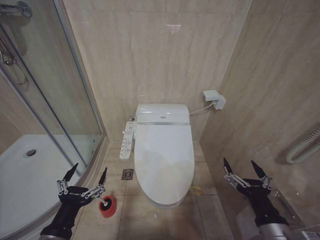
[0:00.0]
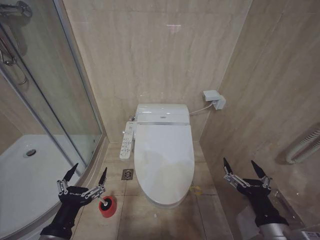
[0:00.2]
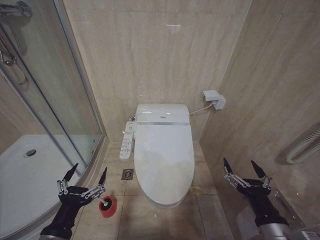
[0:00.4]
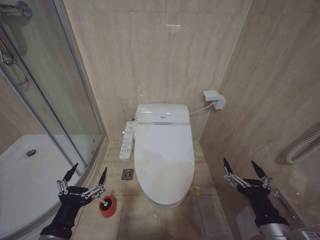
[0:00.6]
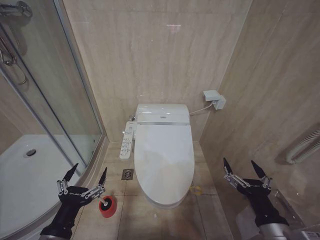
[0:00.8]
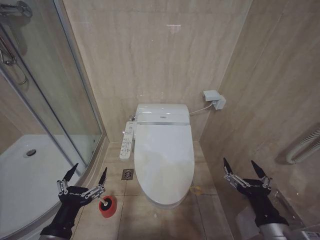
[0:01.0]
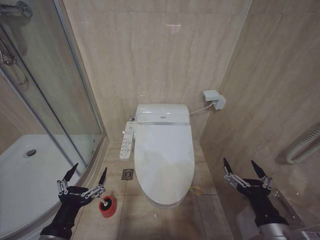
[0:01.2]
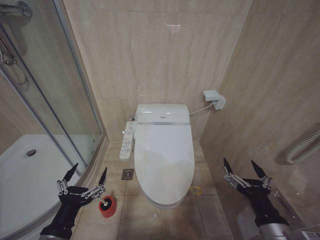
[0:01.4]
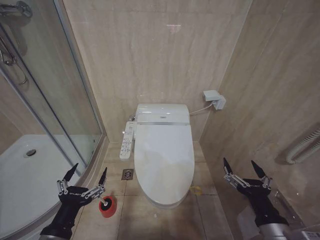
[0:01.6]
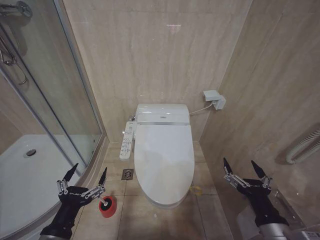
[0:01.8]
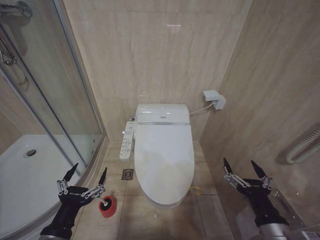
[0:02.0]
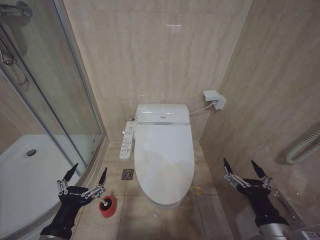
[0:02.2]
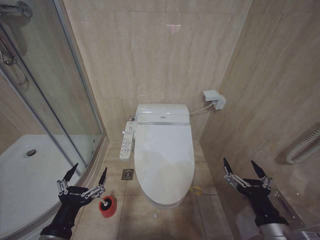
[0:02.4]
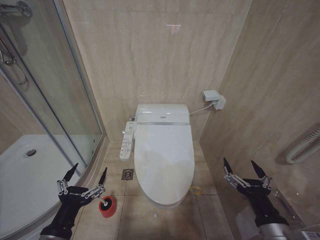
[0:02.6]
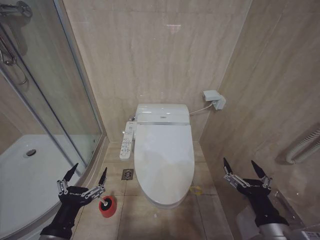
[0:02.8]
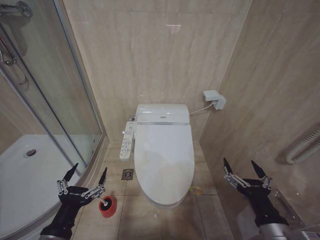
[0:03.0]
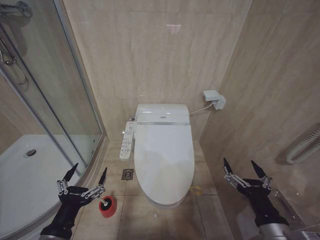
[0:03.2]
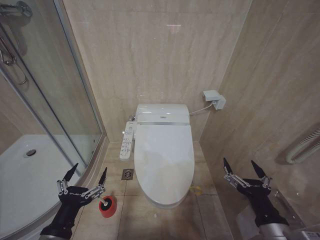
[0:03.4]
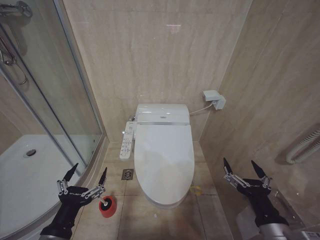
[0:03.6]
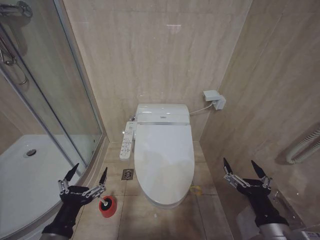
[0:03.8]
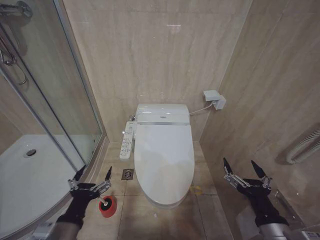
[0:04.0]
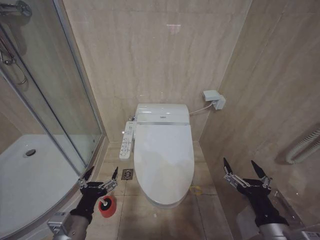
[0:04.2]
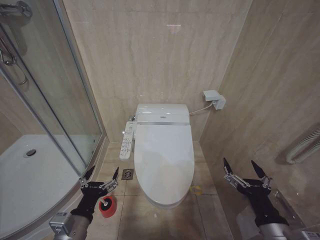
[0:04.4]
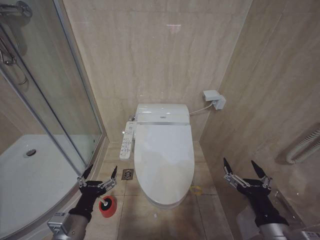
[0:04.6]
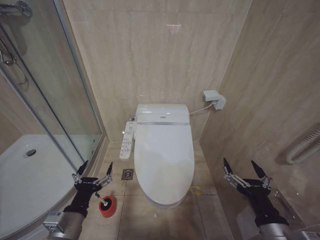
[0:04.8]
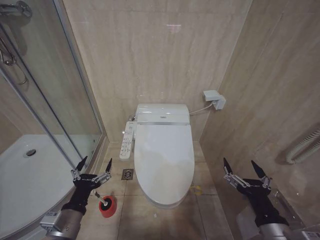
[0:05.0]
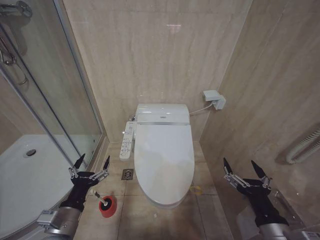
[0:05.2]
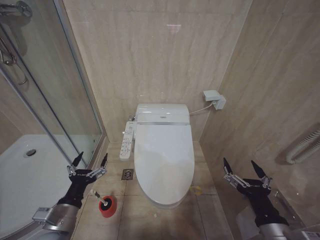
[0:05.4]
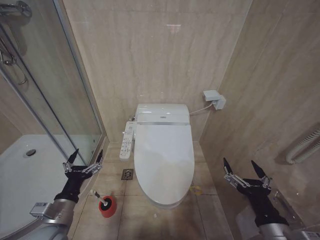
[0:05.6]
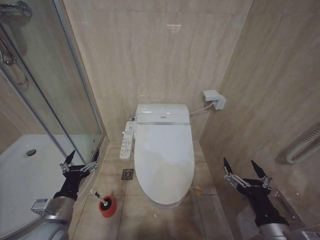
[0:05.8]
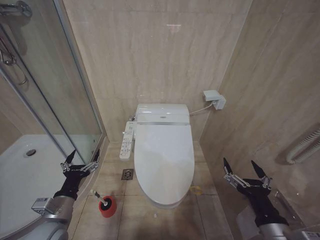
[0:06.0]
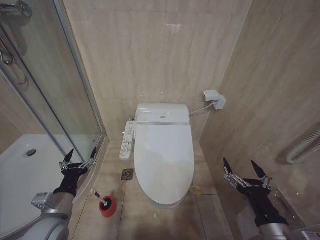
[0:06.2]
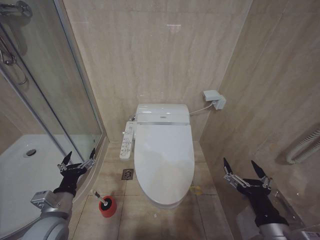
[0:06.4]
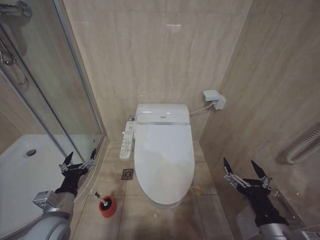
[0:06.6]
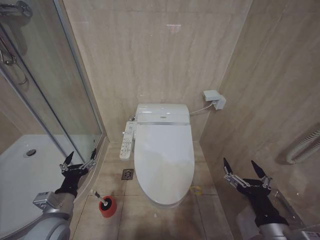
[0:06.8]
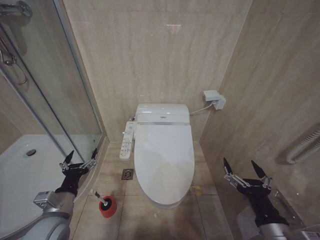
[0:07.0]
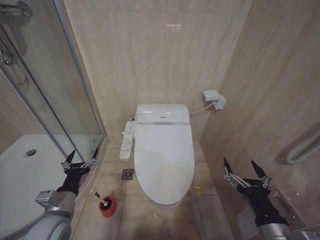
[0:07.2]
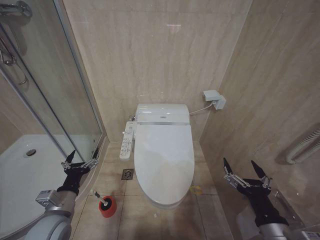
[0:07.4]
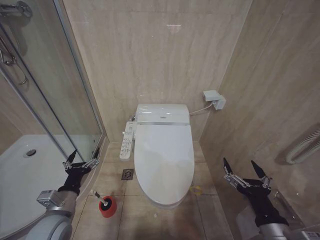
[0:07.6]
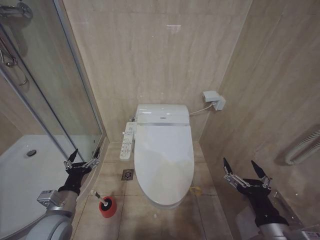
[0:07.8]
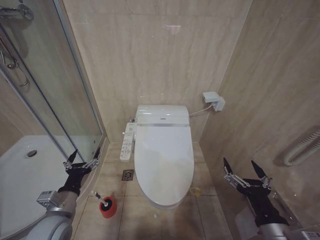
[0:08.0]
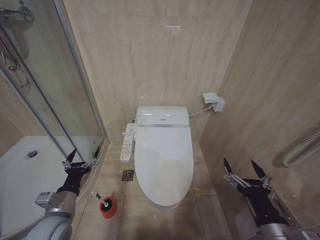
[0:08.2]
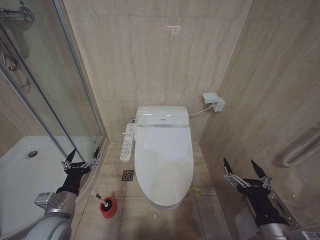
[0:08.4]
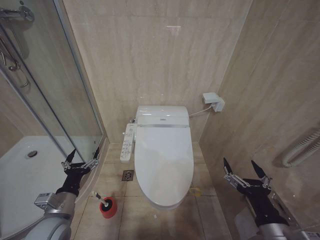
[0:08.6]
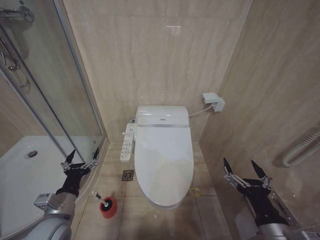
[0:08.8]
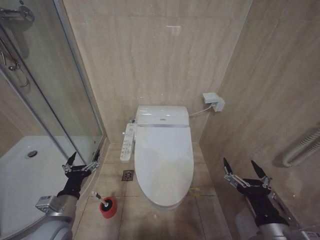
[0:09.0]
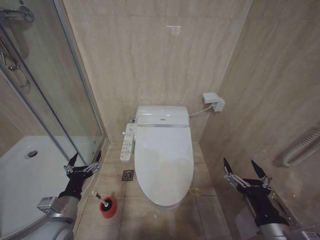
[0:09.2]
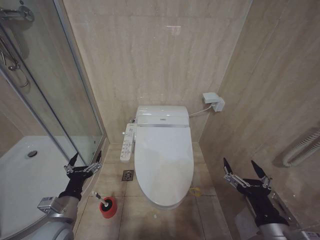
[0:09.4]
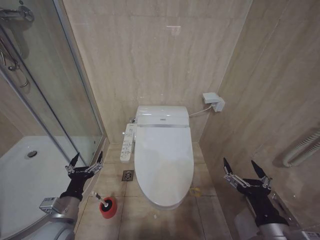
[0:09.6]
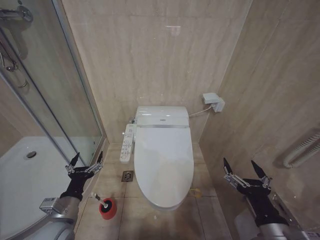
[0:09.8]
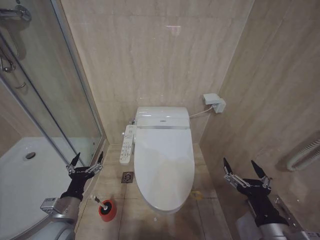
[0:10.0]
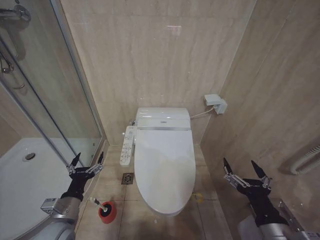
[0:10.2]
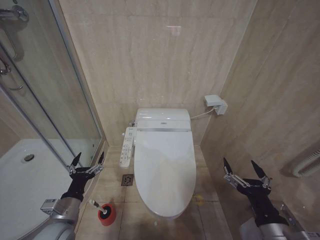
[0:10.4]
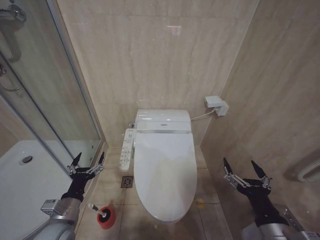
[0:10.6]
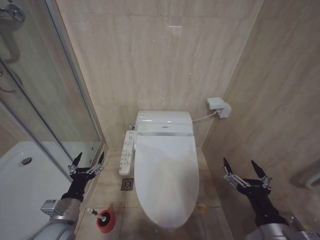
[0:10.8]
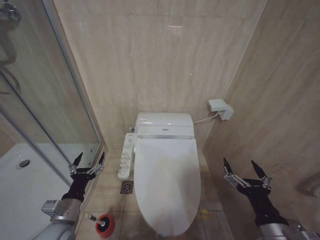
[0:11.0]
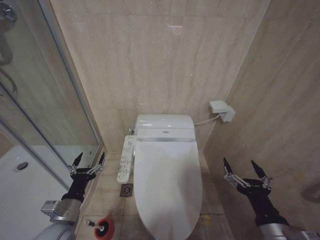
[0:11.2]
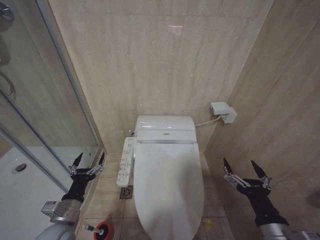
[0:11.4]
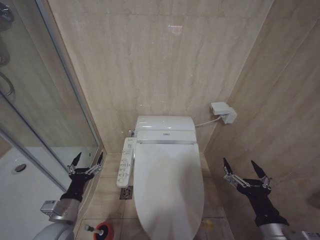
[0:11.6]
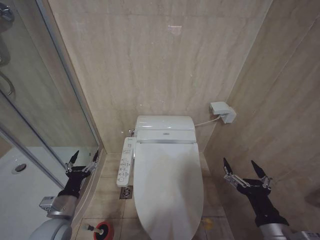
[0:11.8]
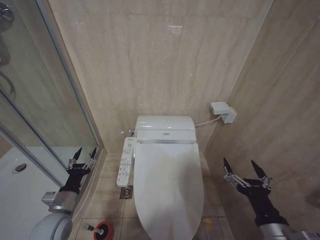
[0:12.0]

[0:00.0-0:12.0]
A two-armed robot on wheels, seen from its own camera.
Task of the whole recording: Open the toilet lid, clean the toilet bowl with a toilet brush, close the toilet lid, and flush.
0:00.0 to 0:03.0: Both grippers stay about where they are.
0:03.0 to 0:04.4: The left gripper shifts by approximately 5 cm.
0:04.4 to 0:06.0: The left gripper moves to the left and forward, roughly 10 cm.
0:06.0 to 0:07.6: There are only small adjustments of the grippers.
0:07.6 to 0:09.0: The two grippers keep their place.
0:09.0 to 0:12.0: The grippers stay close to where they were, moving slightly.

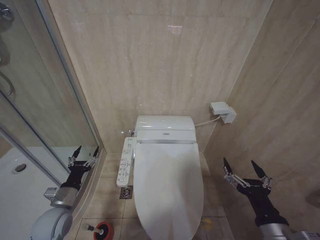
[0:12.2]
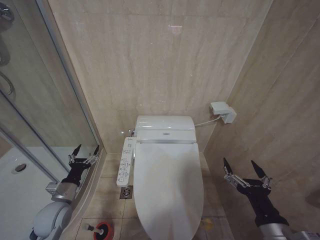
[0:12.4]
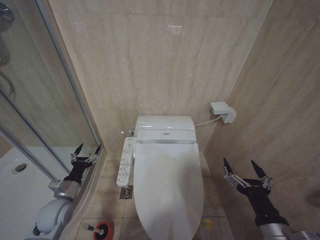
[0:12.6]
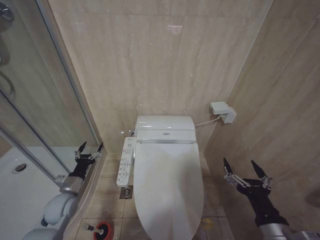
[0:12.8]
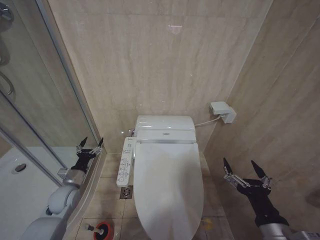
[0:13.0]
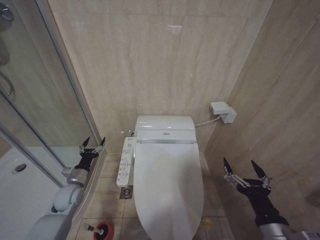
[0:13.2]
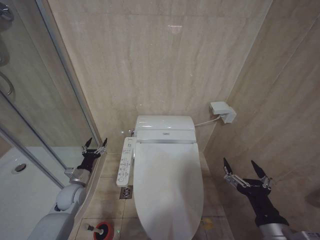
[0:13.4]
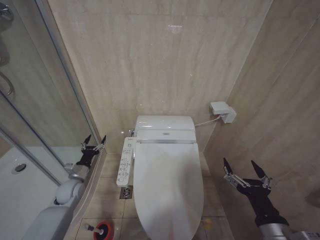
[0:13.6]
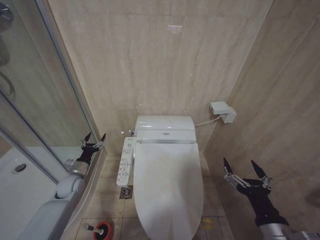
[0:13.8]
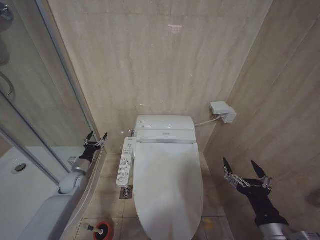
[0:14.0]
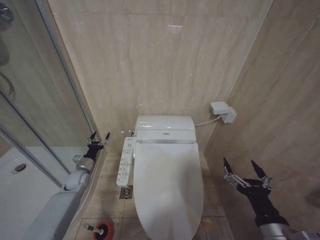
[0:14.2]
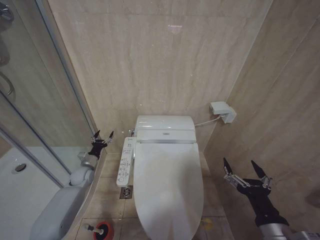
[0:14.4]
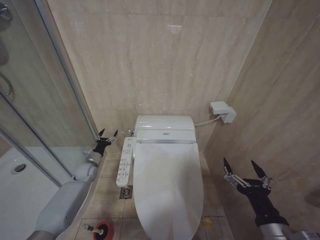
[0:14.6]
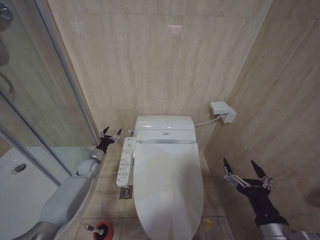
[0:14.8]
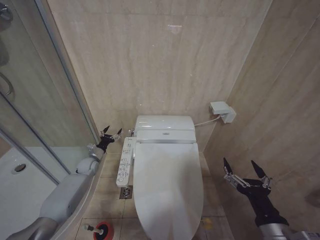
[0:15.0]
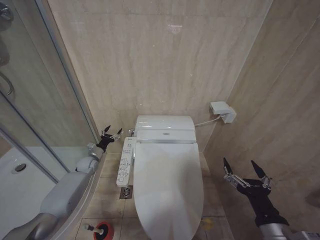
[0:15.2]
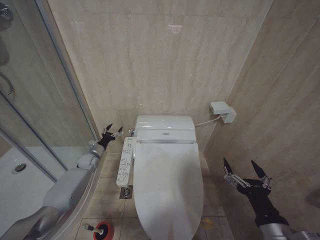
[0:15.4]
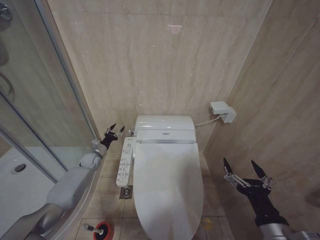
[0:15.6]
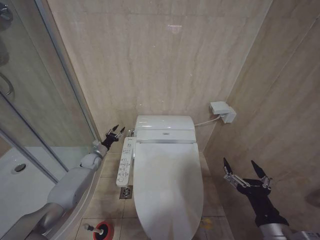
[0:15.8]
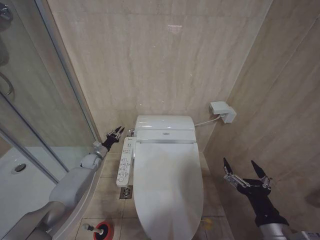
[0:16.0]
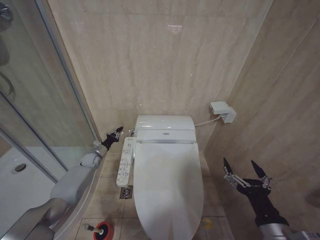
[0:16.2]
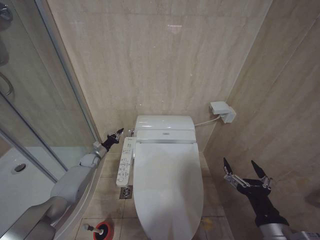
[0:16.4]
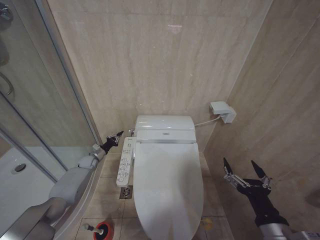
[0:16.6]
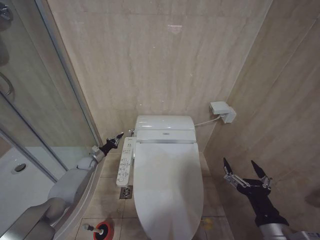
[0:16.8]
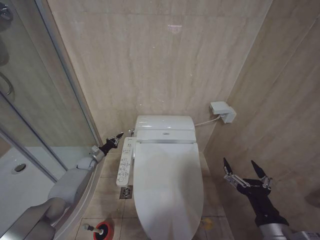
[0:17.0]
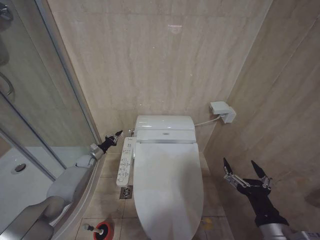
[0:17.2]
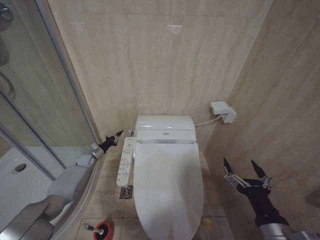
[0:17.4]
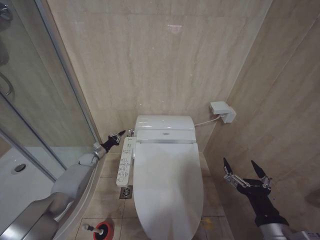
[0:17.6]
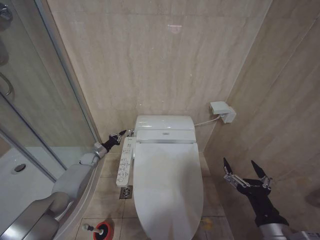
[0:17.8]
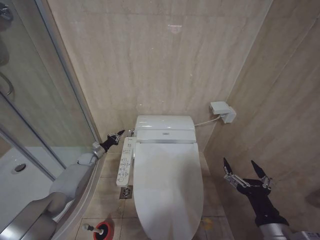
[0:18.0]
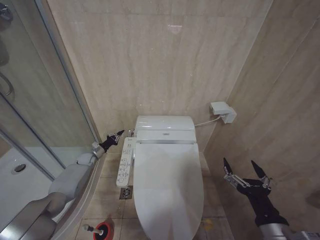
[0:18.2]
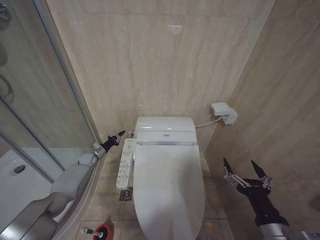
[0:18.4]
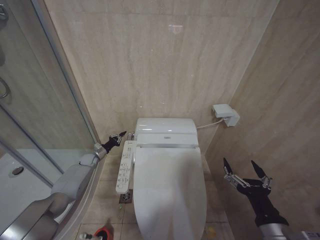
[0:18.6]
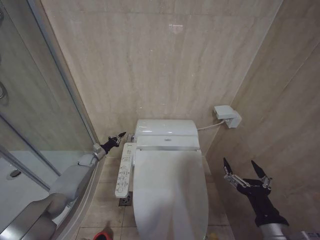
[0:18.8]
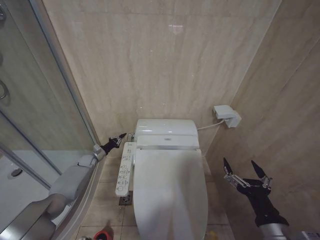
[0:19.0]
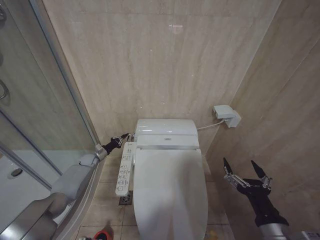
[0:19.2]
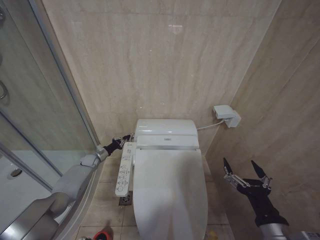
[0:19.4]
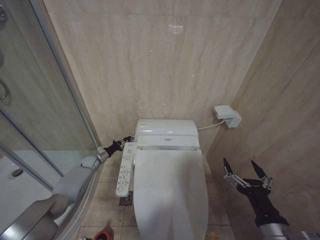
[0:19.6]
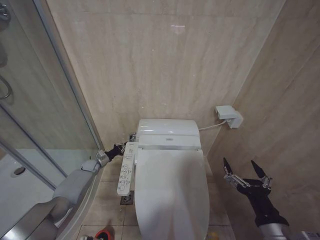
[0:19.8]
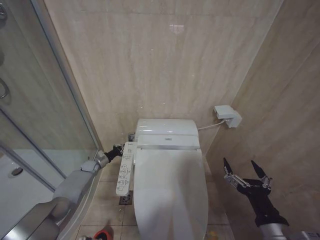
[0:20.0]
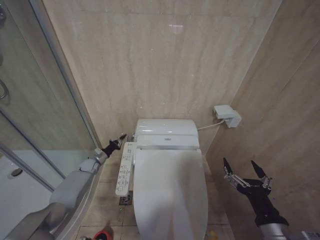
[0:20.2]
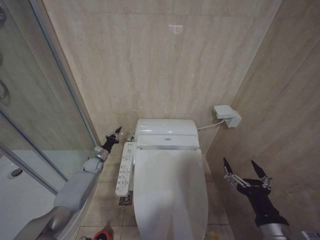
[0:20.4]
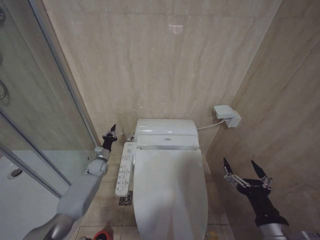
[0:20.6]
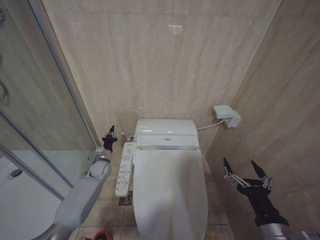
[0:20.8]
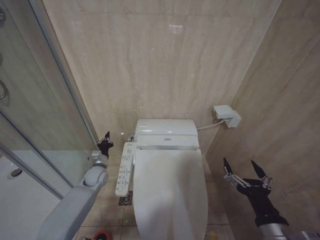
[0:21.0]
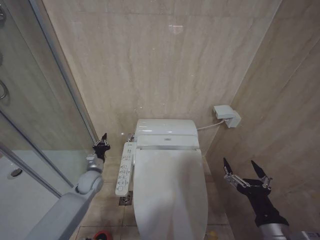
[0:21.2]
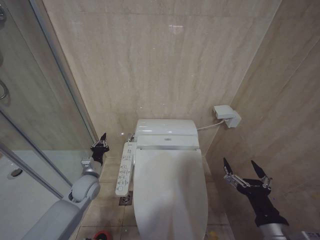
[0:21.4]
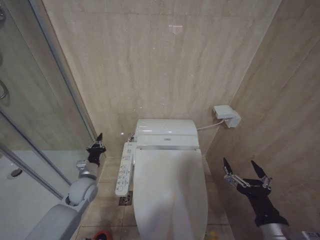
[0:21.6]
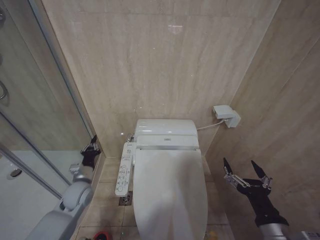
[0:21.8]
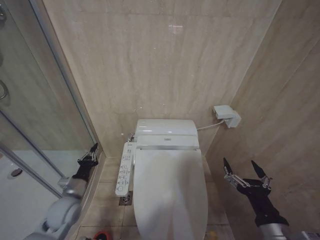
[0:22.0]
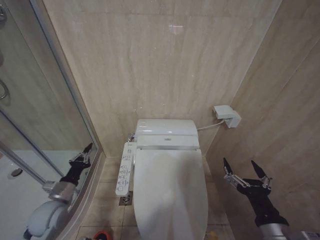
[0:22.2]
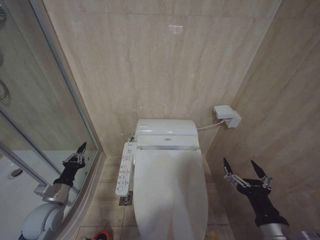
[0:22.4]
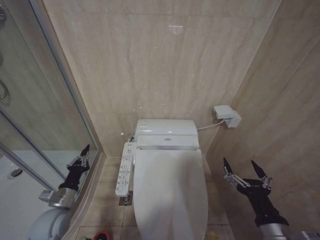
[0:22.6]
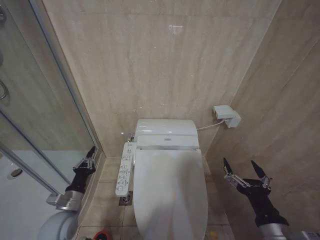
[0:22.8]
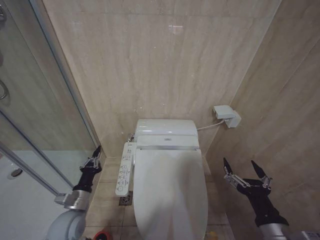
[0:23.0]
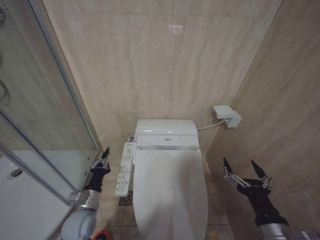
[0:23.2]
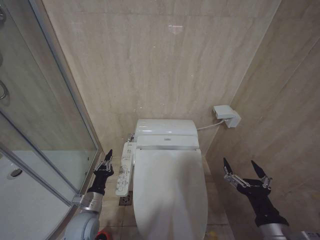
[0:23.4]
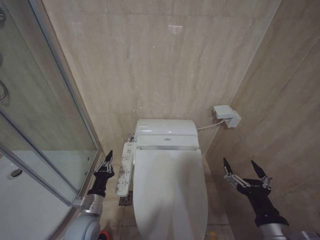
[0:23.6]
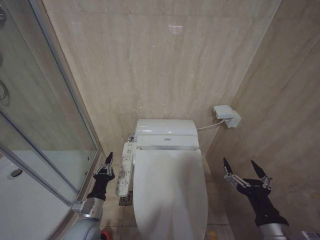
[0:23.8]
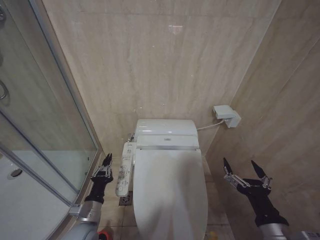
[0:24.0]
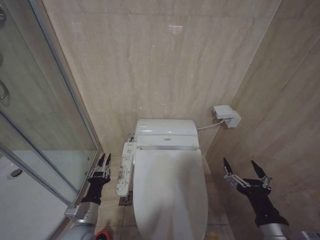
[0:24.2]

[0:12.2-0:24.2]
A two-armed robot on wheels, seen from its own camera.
Task of the whole recording: Open the toilet lid, clean the toilet bowl with a toilet brush, close the toilet lid, and flush.
0:12.2 to 0:13.8: The left gripper is displaced forward by some 15 cm.
0:13.8 to 0:15.2: The left gripper shifts about 10 cm forward.
0:15.2 to 0:16.6: The left gripper closes up.
0:16.6 to 0:19.8: The grippers stay close to where they were, moving slightly.
0:19.8 to 0:21.2: The left gripper heads backward, to the right and upward, covering about 15 cm.
0:21.2 to 0:22.6: The left gripper heads backward and to the left, covering roughly 20 cm.
0:22.6 to 0:24.2: The left gripper travels to the right and backward by roughly 10 cm.
